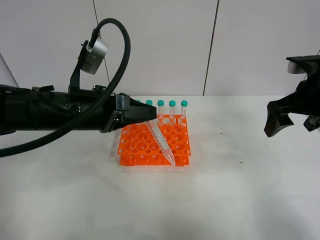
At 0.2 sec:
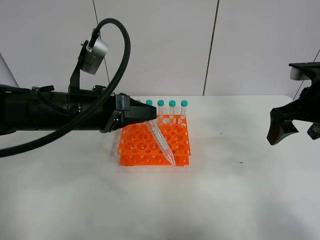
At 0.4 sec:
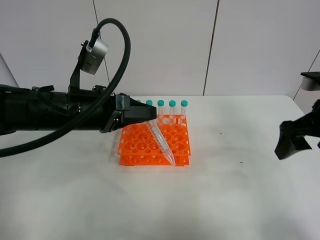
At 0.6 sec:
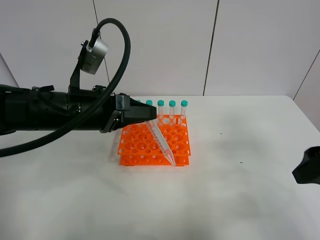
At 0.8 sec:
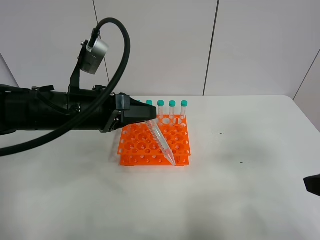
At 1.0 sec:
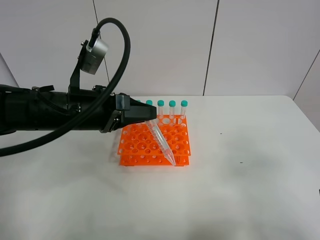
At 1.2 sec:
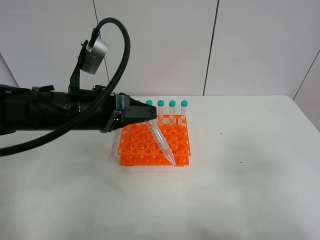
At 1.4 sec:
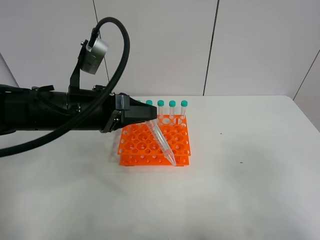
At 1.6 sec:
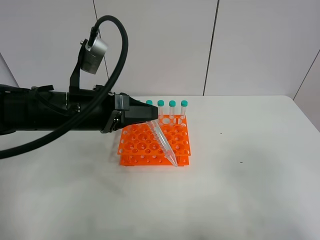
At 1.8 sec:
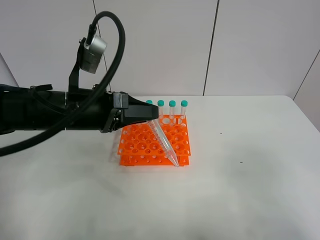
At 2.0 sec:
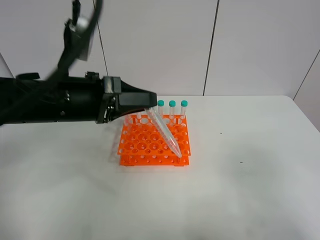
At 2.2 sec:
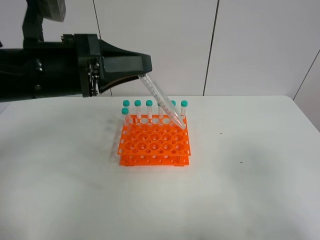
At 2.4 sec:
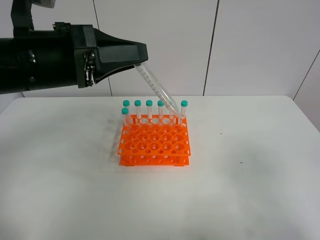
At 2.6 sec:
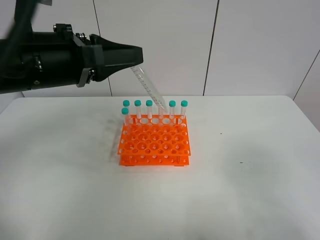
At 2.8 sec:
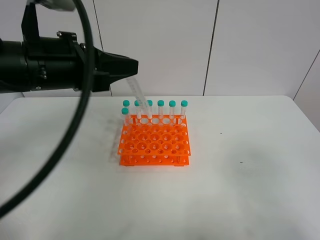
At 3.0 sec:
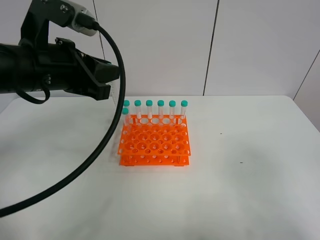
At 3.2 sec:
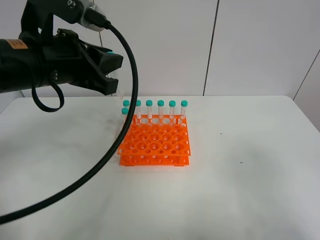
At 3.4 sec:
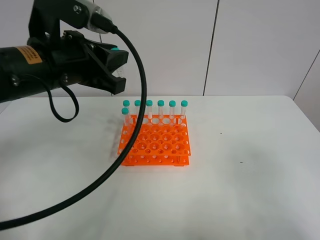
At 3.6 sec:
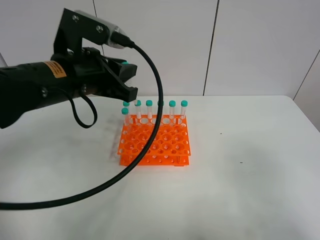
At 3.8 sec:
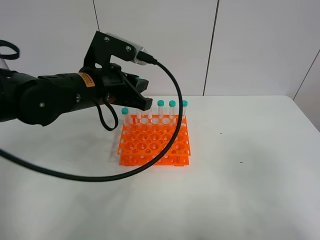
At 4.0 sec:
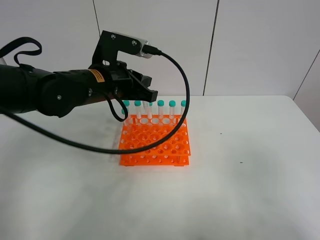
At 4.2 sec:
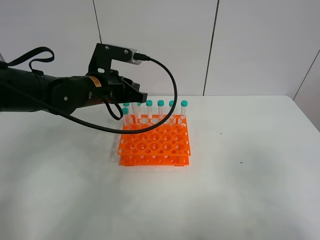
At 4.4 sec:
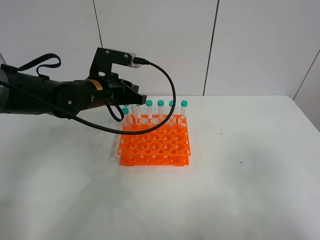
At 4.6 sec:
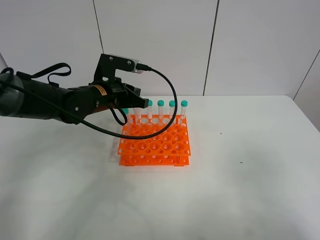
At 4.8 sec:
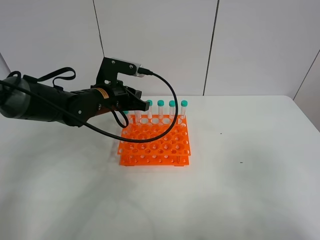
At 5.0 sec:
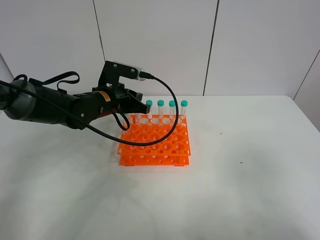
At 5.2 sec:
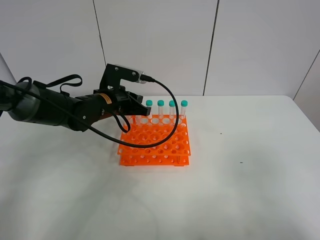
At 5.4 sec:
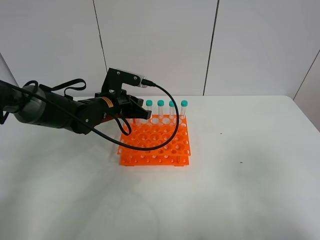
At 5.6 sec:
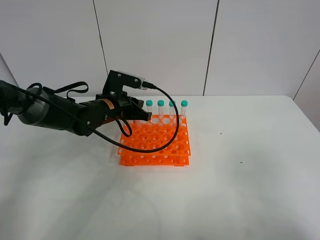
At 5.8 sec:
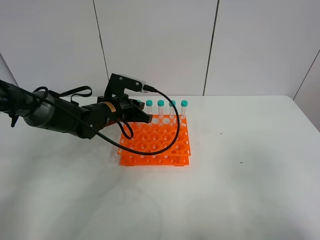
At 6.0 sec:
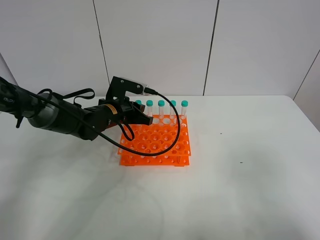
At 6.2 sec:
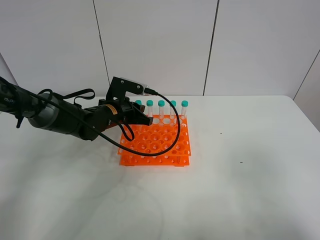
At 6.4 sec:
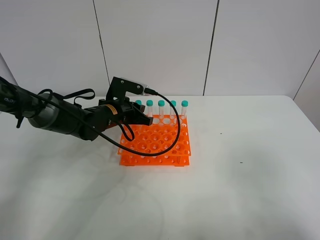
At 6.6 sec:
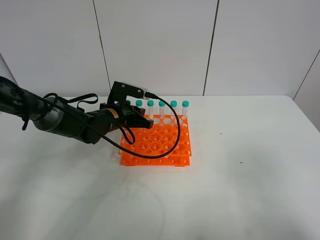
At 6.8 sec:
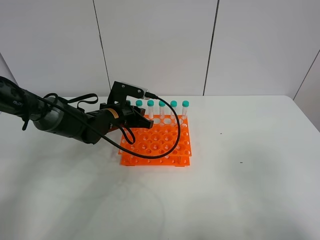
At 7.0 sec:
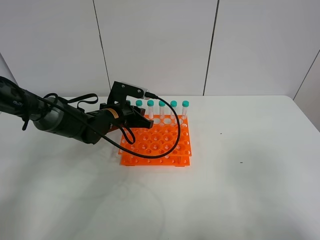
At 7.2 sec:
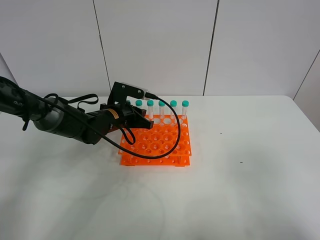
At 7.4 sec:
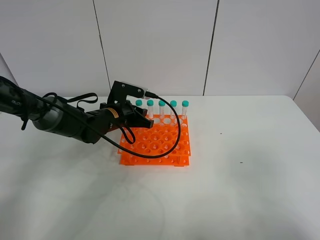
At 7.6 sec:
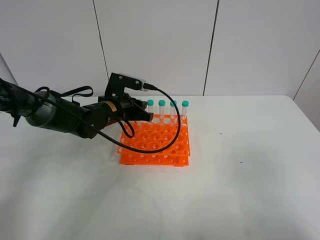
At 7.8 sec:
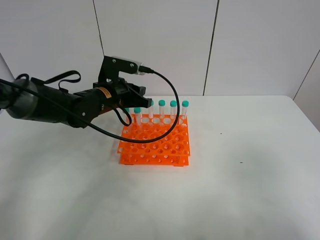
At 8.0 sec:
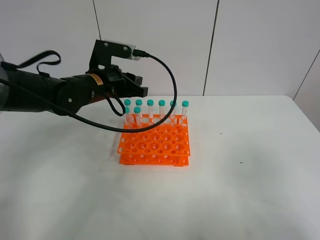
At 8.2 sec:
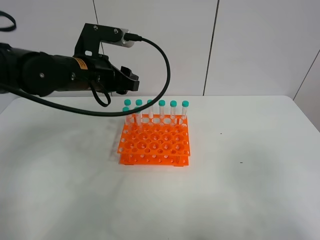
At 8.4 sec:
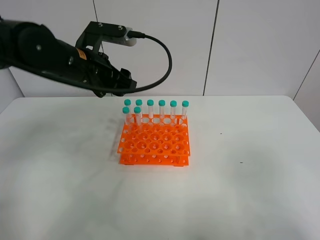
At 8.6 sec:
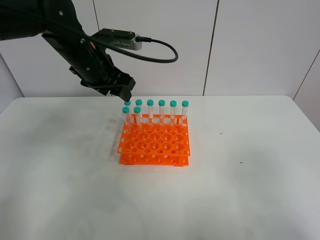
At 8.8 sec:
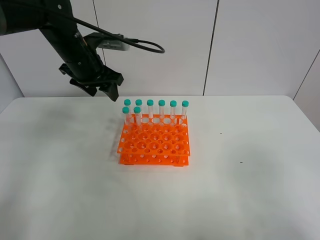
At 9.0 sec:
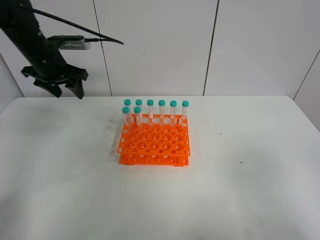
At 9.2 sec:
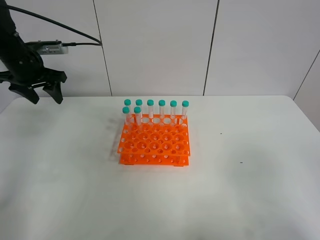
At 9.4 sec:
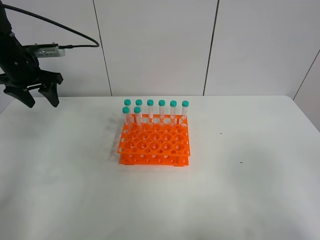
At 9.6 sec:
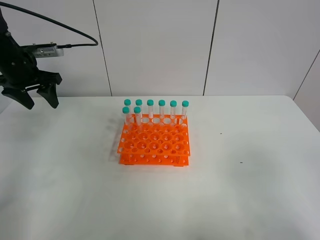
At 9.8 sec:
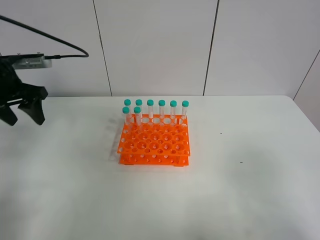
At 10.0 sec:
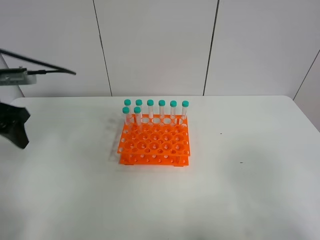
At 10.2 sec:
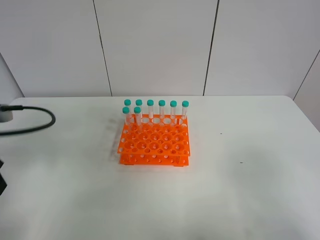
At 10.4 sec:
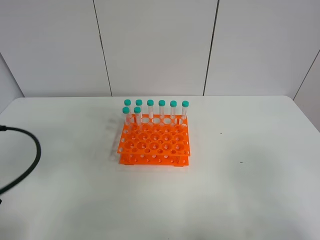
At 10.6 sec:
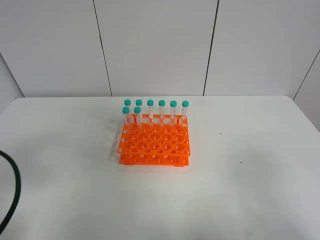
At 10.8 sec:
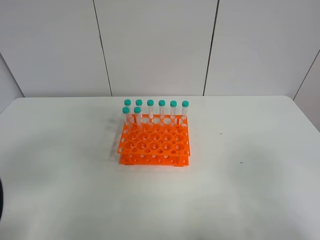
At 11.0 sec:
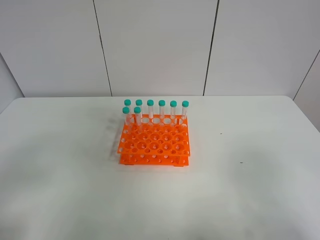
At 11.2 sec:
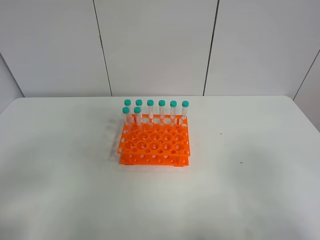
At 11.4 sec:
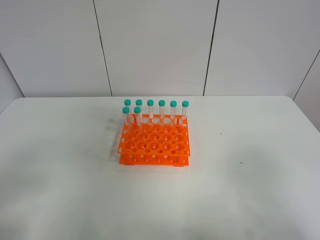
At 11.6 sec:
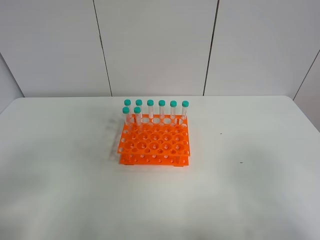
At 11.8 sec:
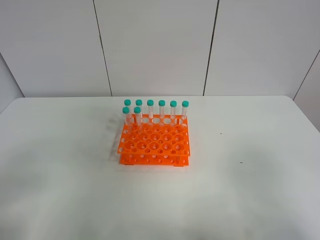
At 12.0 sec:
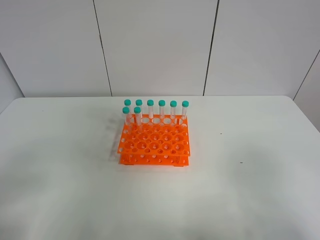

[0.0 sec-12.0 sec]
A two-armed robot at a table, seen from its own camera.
Task of the whole recording: Put the test tube on the table back onto the test tube rack.
Step, 0.0 sec to 7.4 sec: Place the test tube on the test tube rack with the left gripper.
0.0 sec to 1.6 sec: The right gripper shifts roughly 30 cm backward.
1.6 sec to 3.0 sec: The left gripper goes some 10 cm upward.
3.0 sec to 4.4 sec: The left gripper shifts about 15 cm downward and forward.
4.4 sec to 6.0 sec: The left gripper shifts approximately 10 cm downward.
6.0 sec to 7.6 sec: The left gripper opens.
7.6 sec to 9.0 sec: The left gripper travels to the left and upward by some 20 cm, and opens up.
9.0 sec to 10.4 sec: The left gripper shifts roughly 30 cm backward.
10.4 sec to 12.0 sec: The left gripper moves backward, approximately 10 cm.
